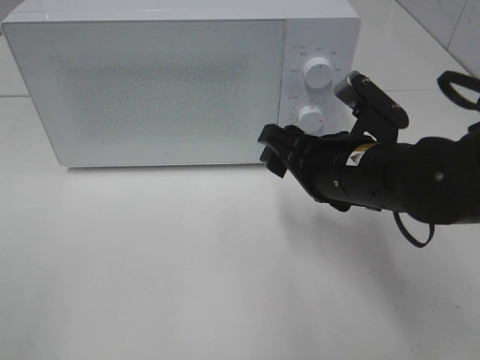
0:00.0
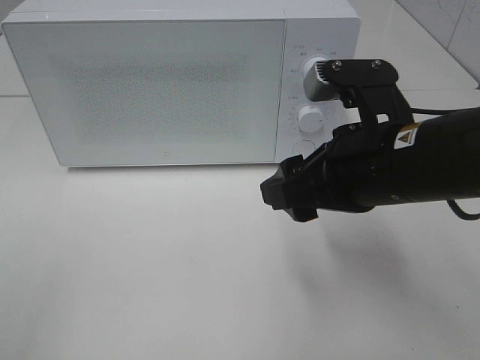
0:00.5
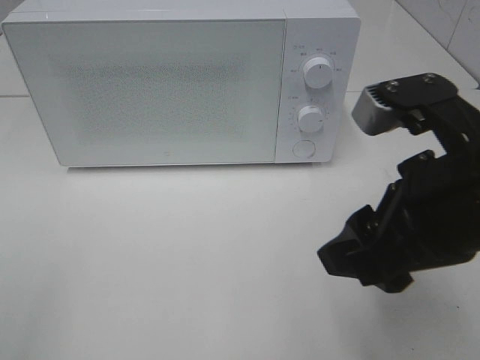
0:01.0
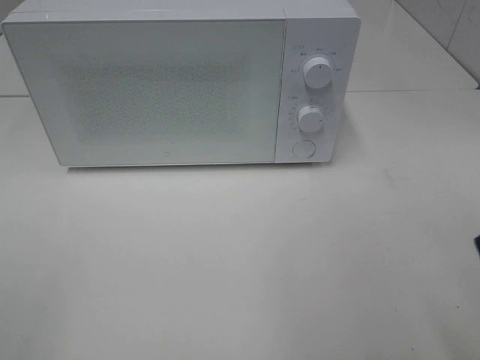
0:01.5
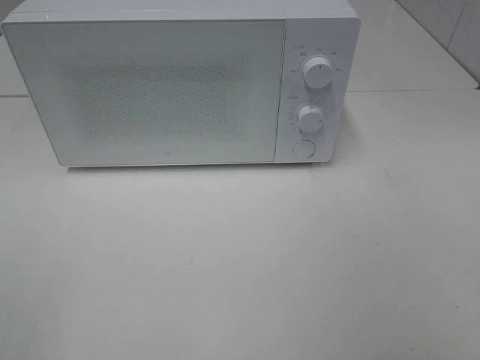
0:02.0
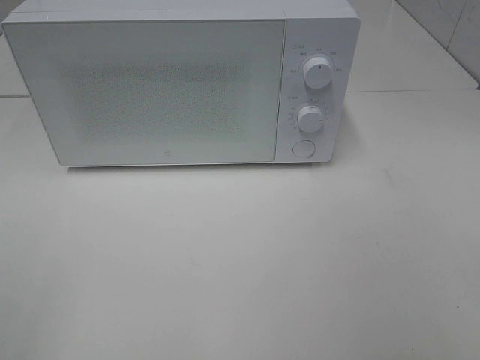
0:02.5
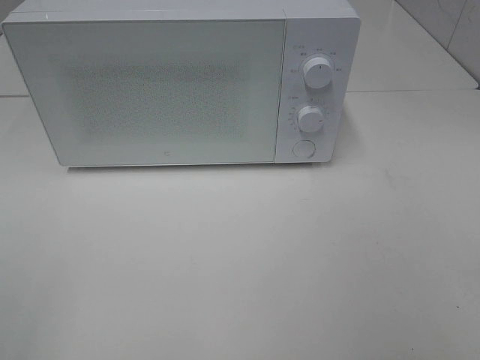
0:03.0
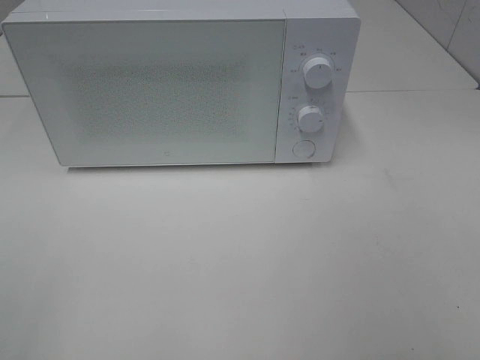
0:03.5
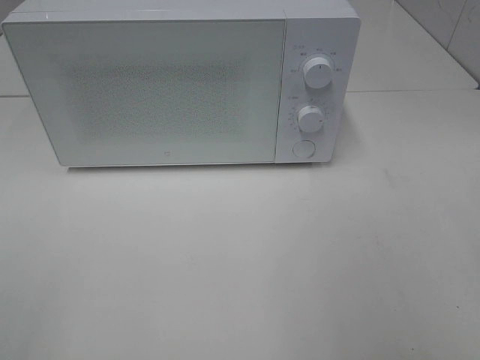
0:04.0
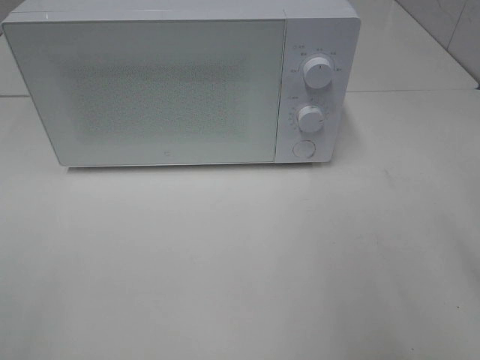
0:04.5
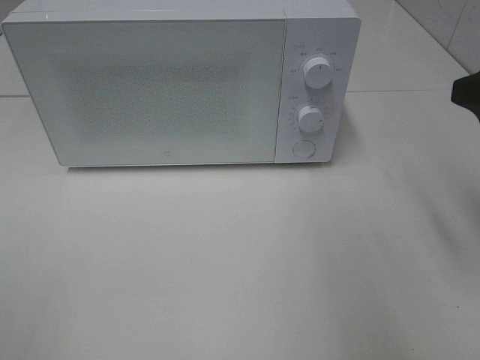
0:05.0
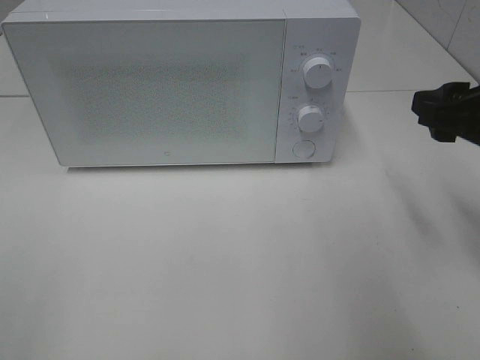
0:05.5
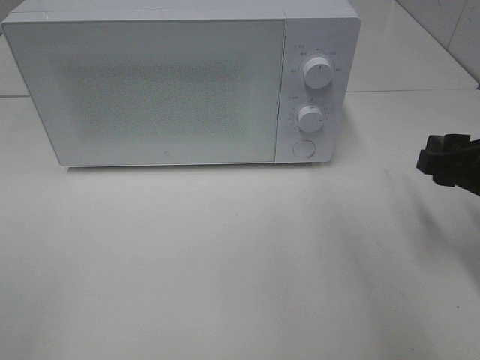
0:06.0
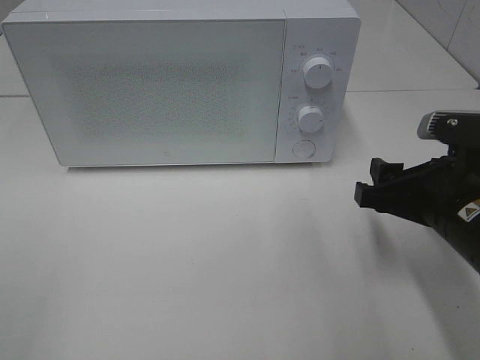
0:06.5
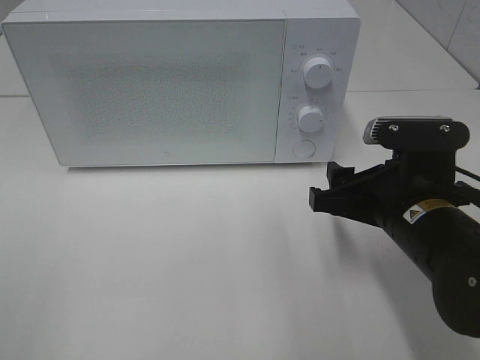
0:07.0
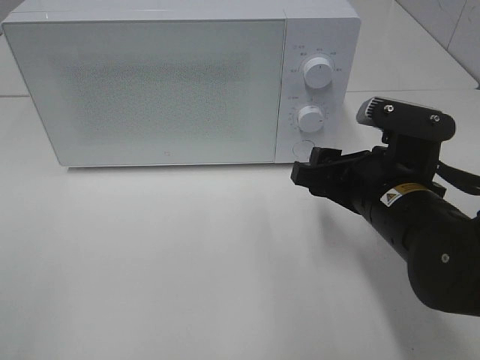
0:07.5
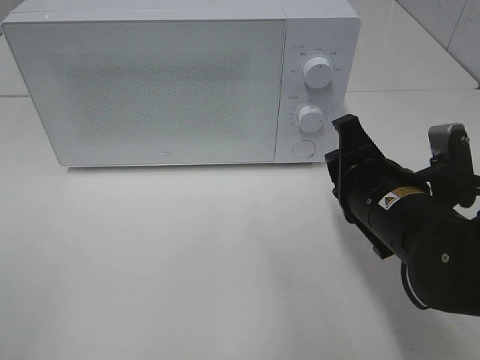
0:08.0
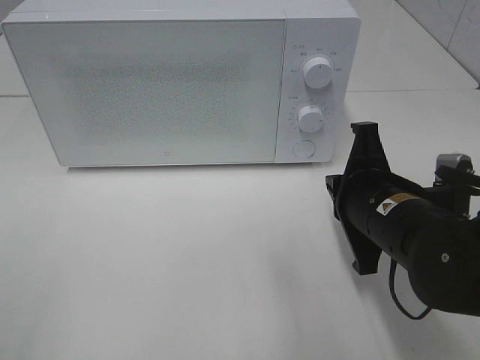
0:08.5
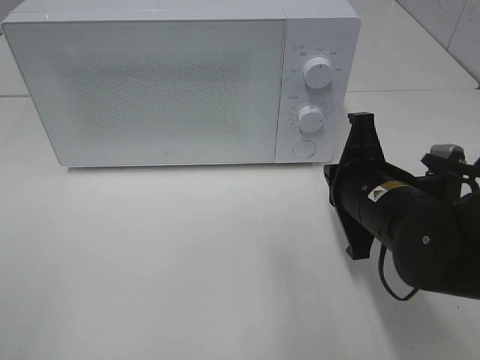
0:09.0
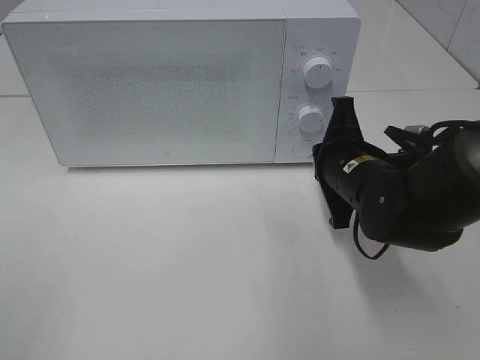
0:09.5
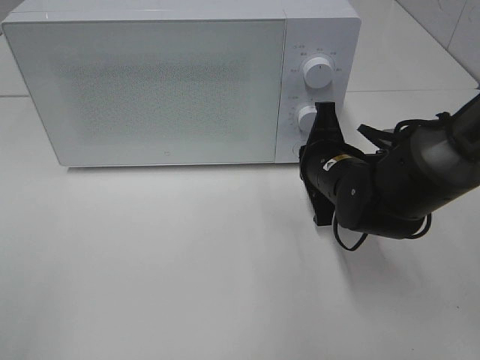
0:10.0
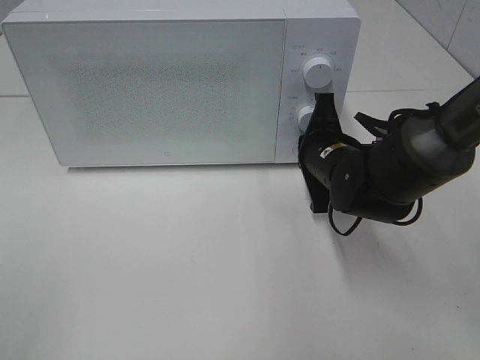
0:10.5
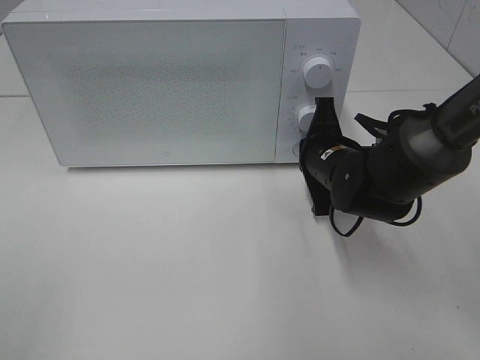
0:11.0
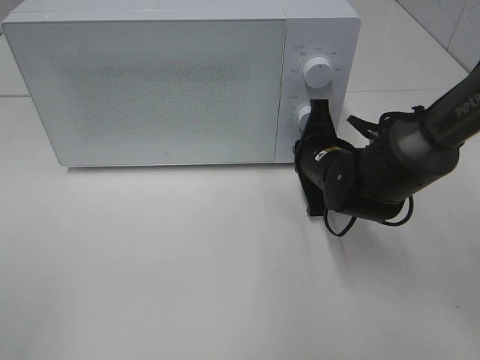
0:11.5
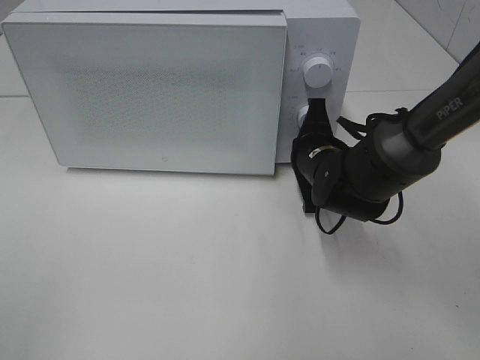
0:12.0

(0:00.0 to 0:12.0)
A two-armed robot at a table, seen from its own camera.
Task of the whole recording: Heat the burger.
0:00.0 - 0:02.0: The right gripper heads backward, to the right and upward, covering roughly 30 cm.
0:04.0 - 0:06.0: The right gripper shifts approximately 20 cm downward and forward.
0:06.0 - 0:08.0: The right gripper travels to the left by approximately 10 cm, and closes.
0:08.0 - 0:10.0: The right gripper heads forward, covering roughly 10 cm, and closes.
0:10.0 - 0:12.0: The grippers make only small movements.

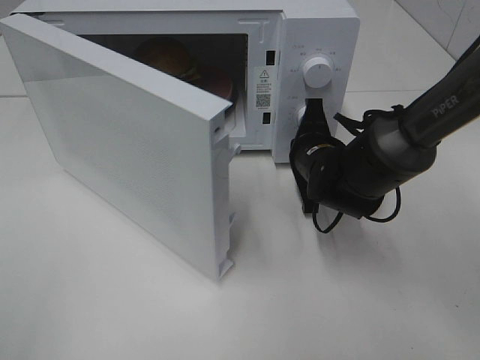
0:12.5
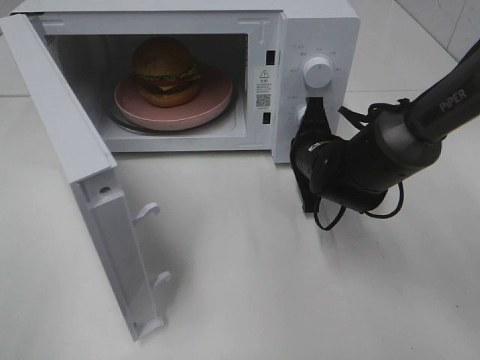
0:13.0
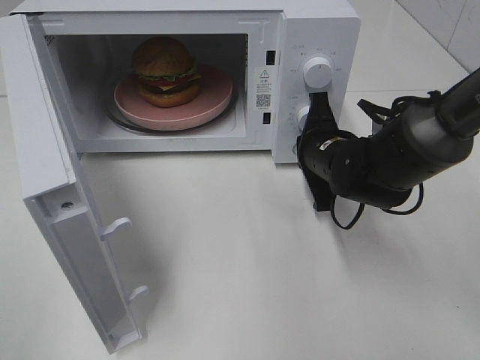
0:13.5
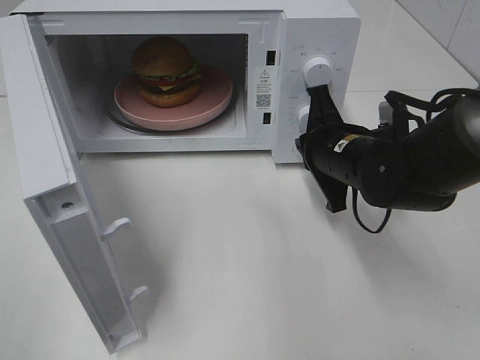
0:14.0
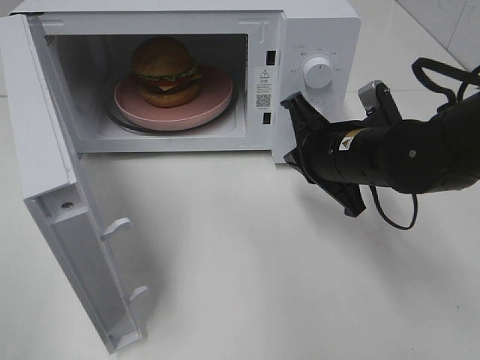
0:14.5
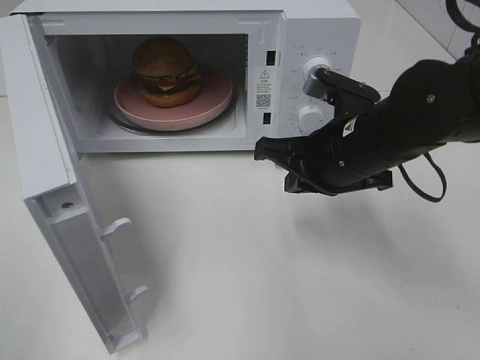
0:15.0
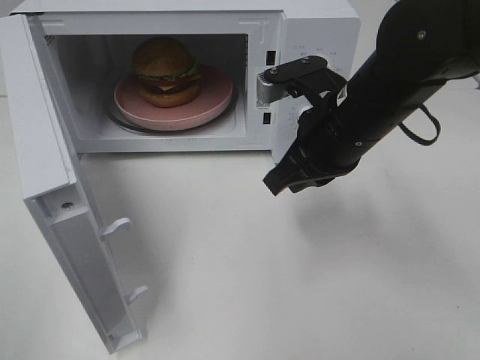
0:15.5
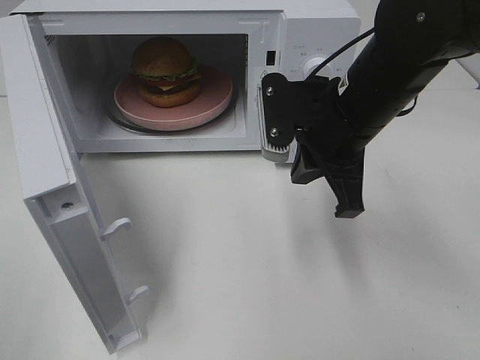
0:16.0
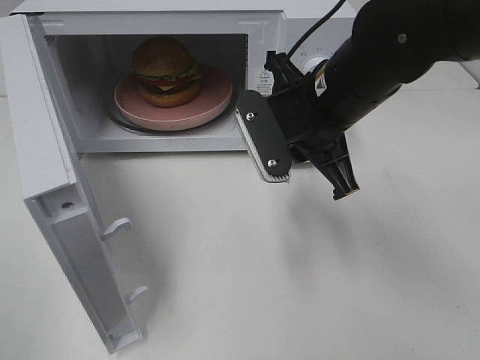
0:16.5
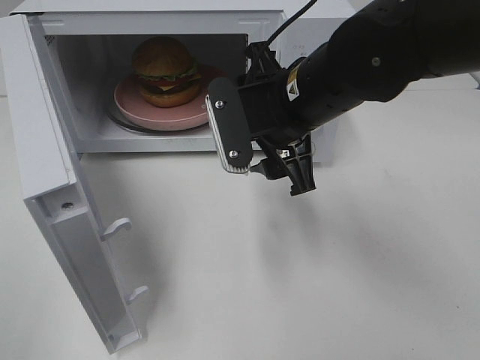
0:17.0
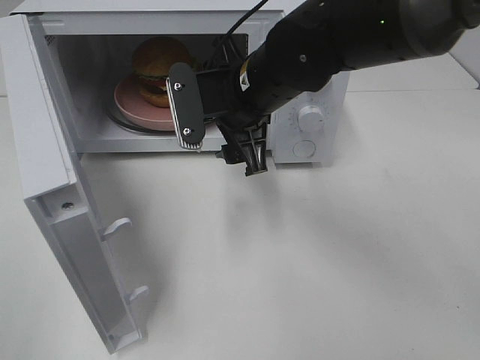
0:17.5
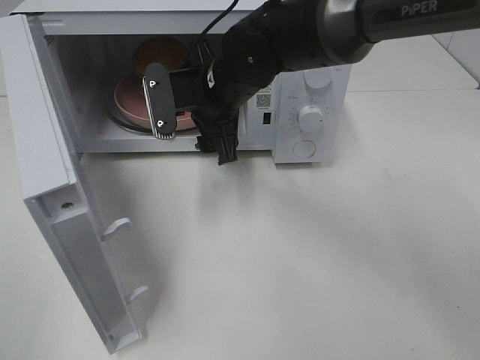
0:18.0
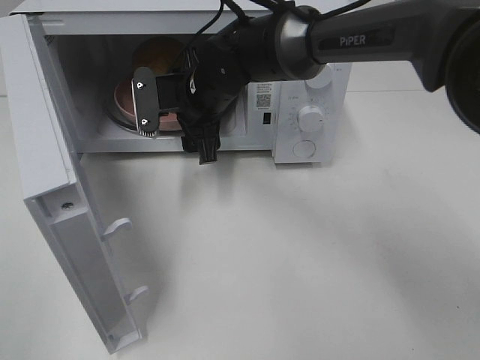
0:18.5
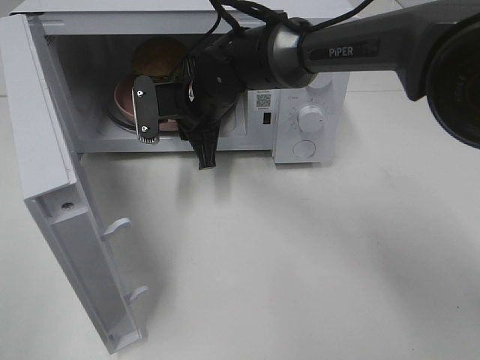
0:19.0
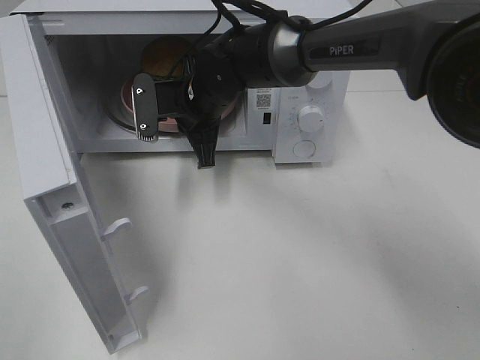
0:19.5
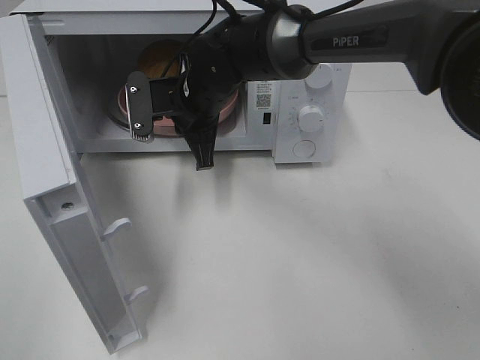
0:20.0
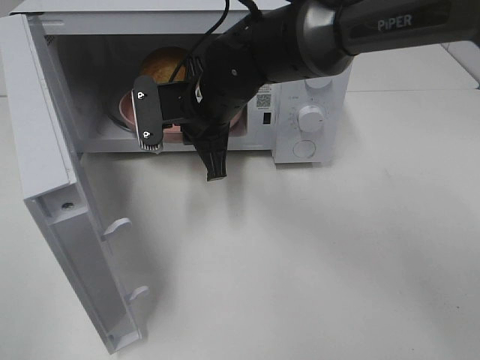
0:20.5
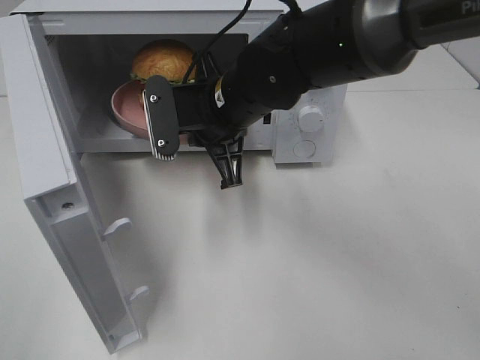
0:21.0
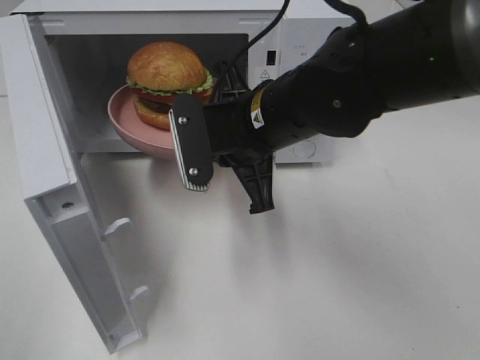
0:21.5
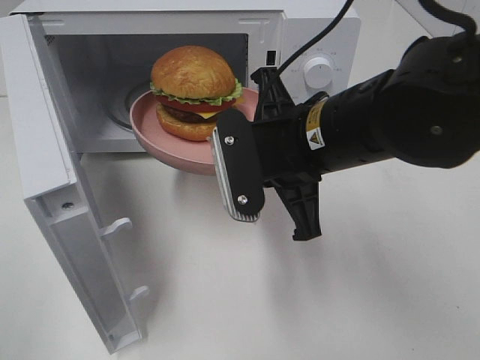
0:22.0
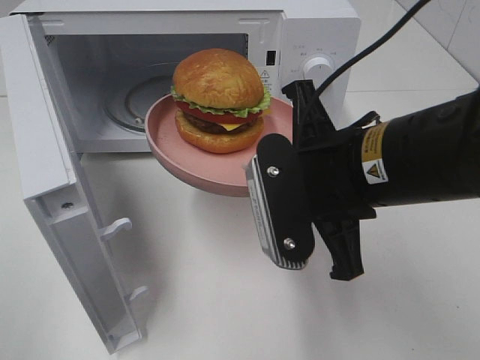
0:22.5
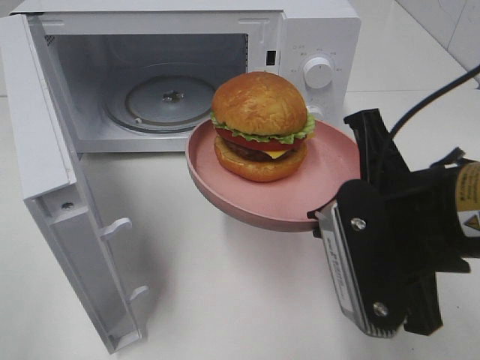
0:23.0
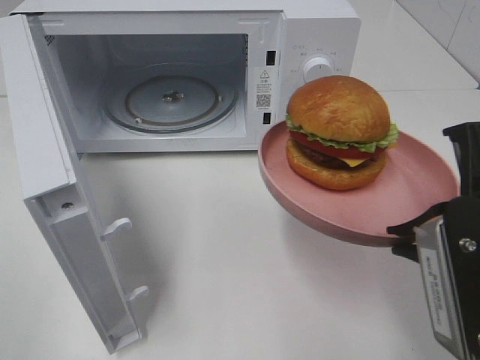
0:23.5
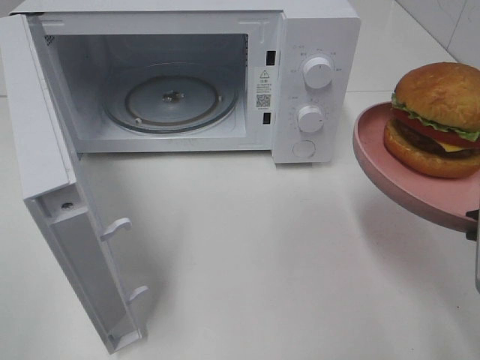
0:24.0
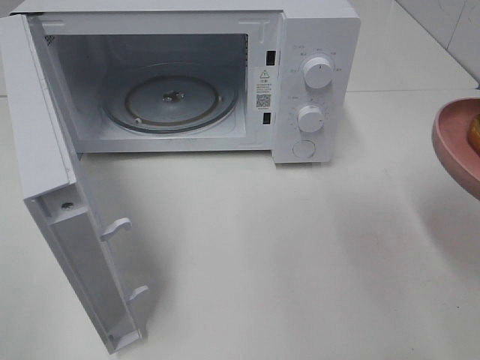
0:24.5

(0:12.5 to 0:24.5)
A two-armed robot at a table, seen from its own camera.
Task of the whole recording: Heat the burger.
Step, 0:14.0 - 0:19.0: Right hand: grab the plate with the hamburger.
0:12.5 - 0:14.5: The right gripper travels backward and upward by roughly 10 cm.
0:14.5 - 0:16.5: The right gripper travels upward by some 5 cm.
0:16.5 - 0:18.5: The right gripper heads to the left, forward and downward, covering approximately 20 cm, and opens up.
0:18.5 - 0:20.5: The right gripper closes.
0:20.5 - 0:22.5: The right gripper goes approximately 20 cm backward and to the right.
0:22.5 - 0:24.5: The right gripper heads to the right and backward, covering about 15 cm.

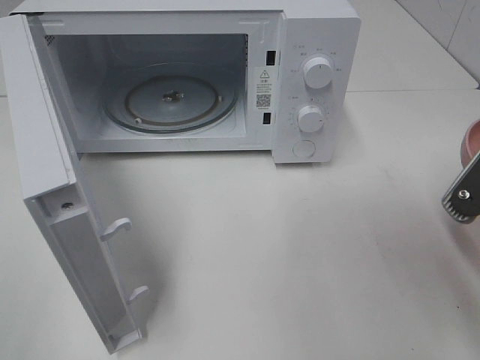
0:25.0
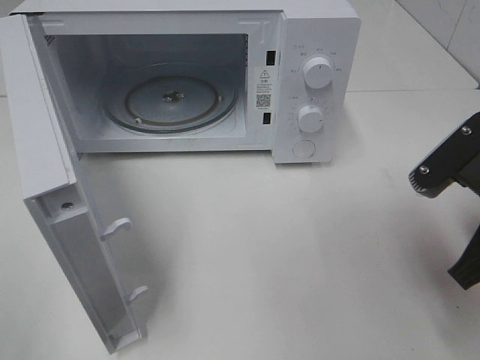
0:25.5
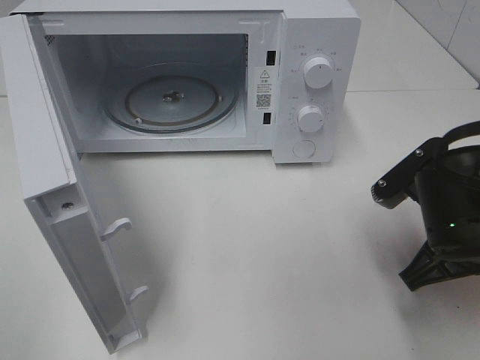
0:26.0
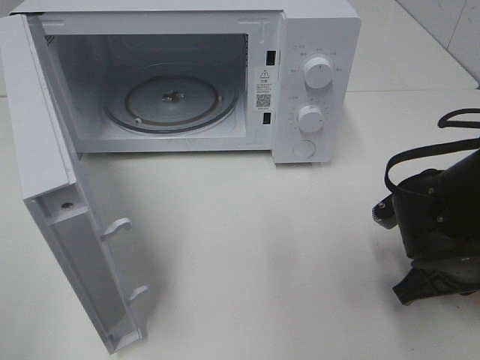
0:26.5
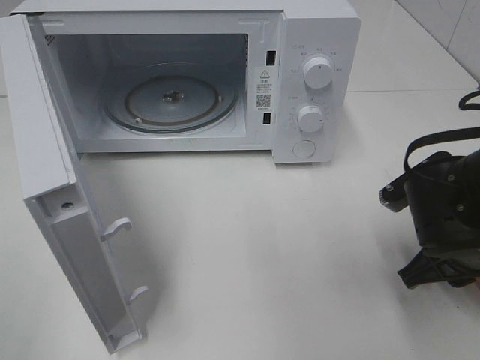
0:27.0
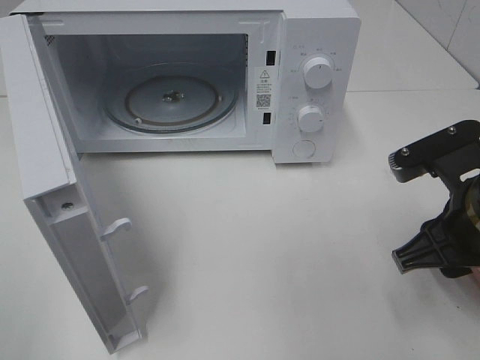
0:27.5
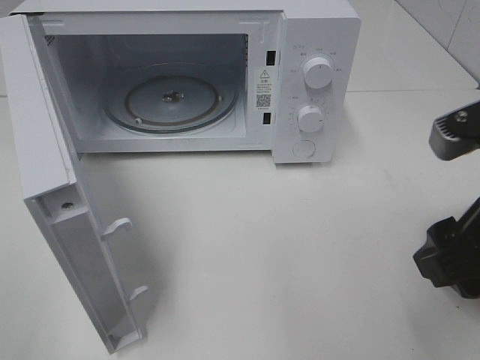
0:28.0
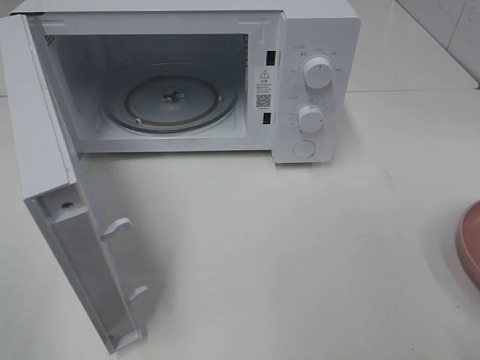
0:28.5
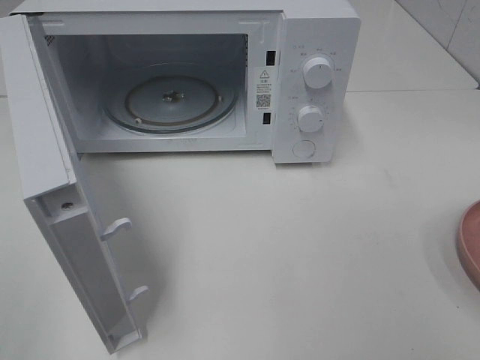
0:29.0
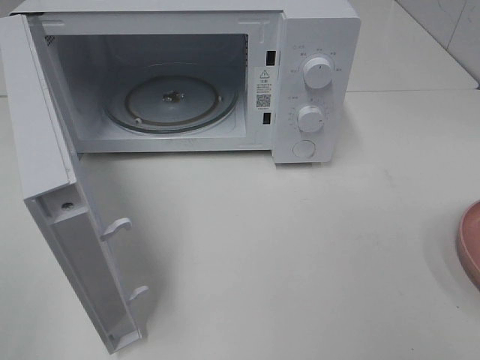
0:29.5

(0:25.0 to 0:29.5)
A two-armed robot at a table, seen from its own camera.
Task of the whole recording: Heat the burger.
0:25.0 - 0:27.0: The right gripper moves downward and forward, roughly 10 cm, and opens up.
0:27.0 - 0:29.5: The right gripper goes approximately 30 cm backward, upward and to the right, and opens up.
